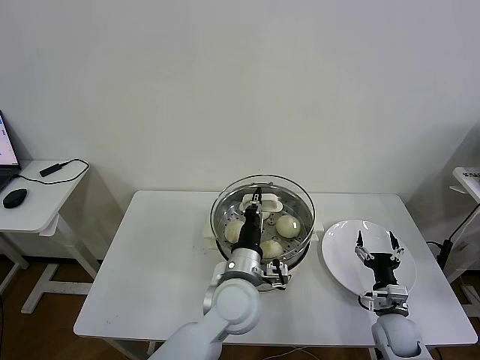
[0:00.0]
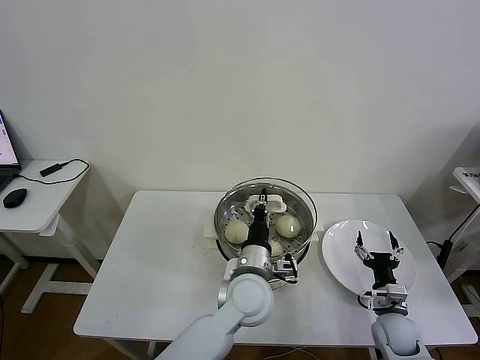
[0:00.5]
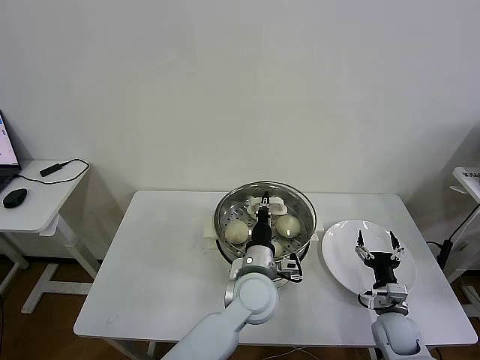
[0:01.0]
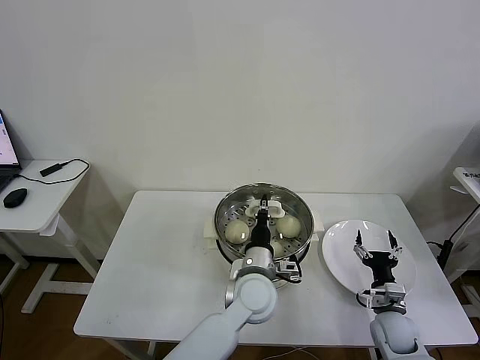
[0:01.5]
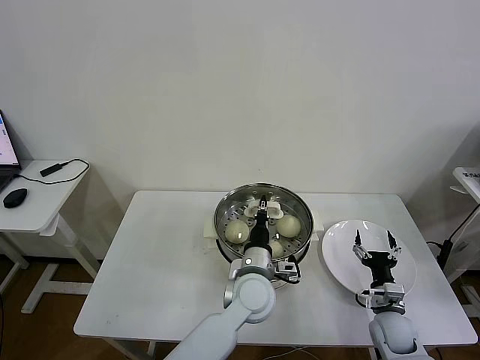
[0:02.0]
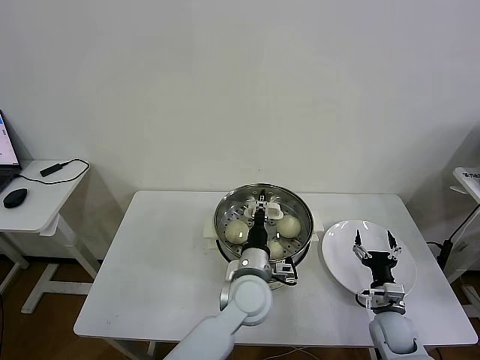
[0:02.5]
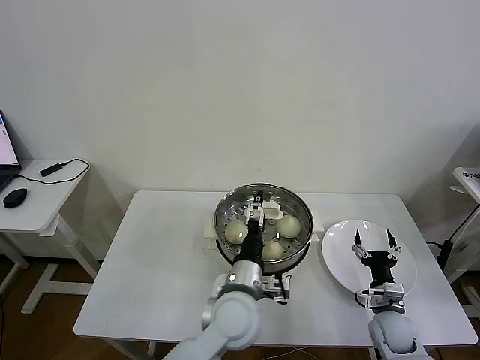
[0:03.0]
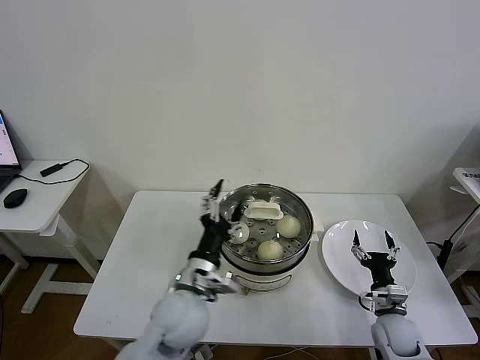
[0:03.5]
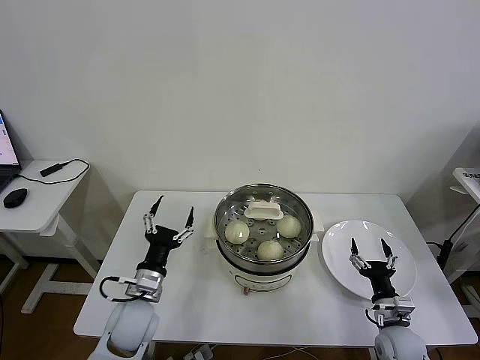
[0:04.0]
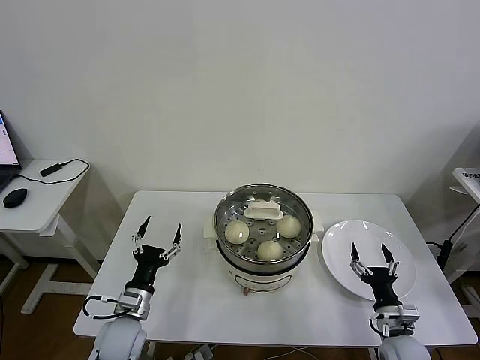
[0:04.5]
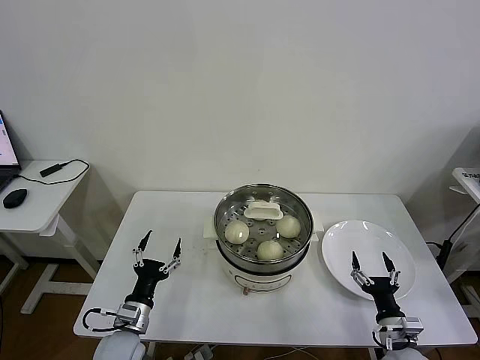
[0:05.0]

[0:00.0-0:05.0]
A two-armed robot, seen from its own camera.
Task of the whole recording: take steamed baozi put them in steamer then cover it.
Step, 0:00.0 to 0:02.5: Place the pot lid on the steamer with left gripper.
0:00.0 to 0:02.5: The left gripper shifts by approximately 5 cm, and opens its fingers.
0:02.5 to 0:05.0: The left gripper moves to the left, approximately 30 cm, and opens. The right gripper is displaced backward by approximately 10 cm.
